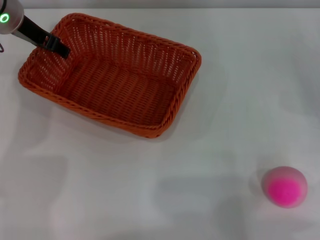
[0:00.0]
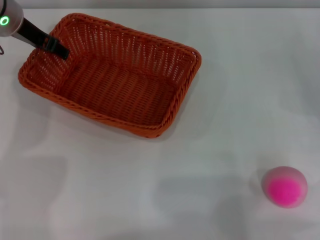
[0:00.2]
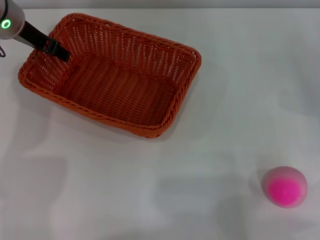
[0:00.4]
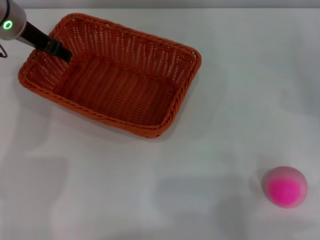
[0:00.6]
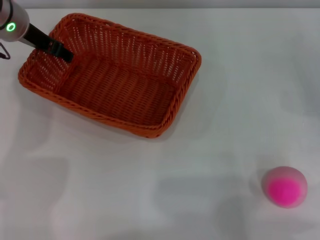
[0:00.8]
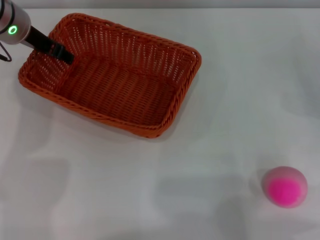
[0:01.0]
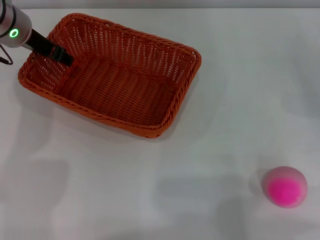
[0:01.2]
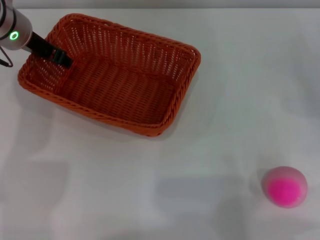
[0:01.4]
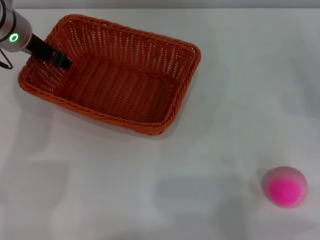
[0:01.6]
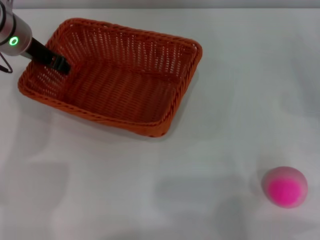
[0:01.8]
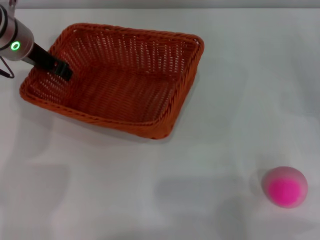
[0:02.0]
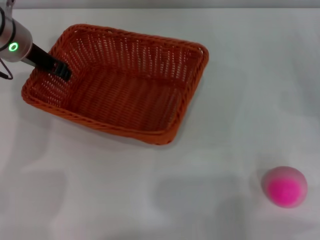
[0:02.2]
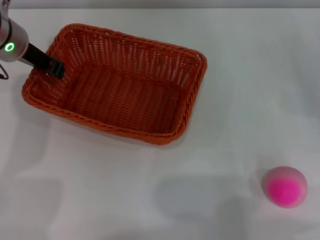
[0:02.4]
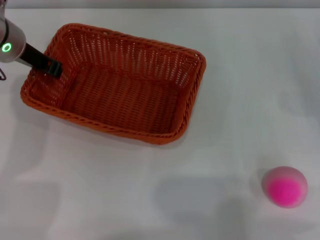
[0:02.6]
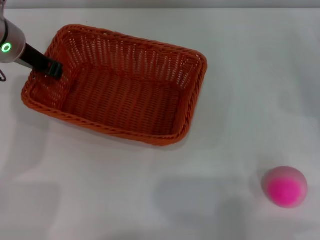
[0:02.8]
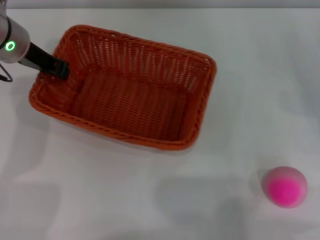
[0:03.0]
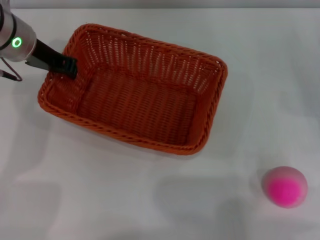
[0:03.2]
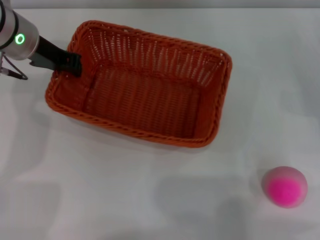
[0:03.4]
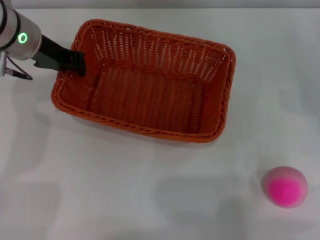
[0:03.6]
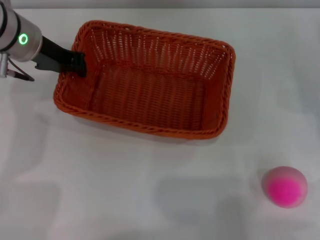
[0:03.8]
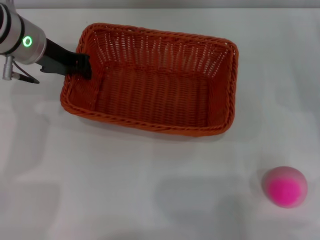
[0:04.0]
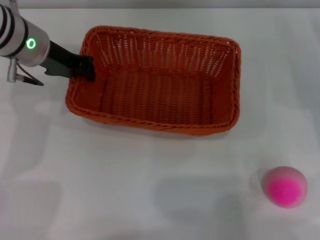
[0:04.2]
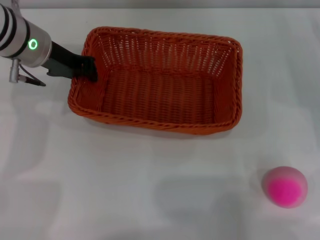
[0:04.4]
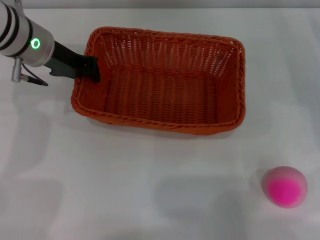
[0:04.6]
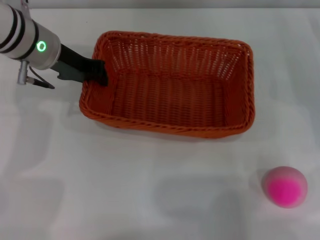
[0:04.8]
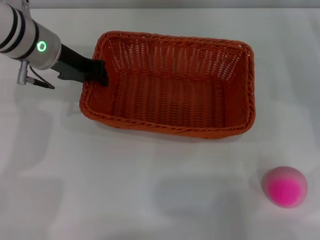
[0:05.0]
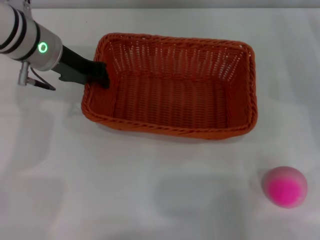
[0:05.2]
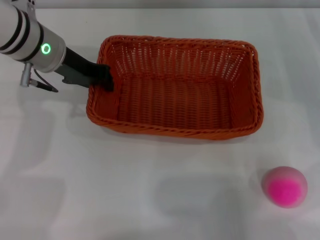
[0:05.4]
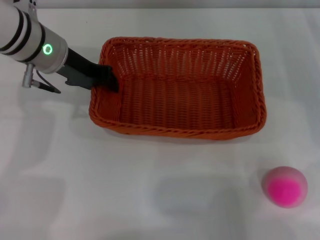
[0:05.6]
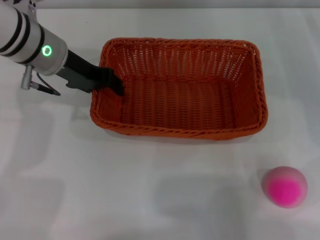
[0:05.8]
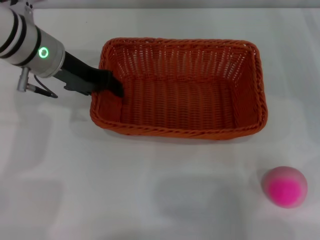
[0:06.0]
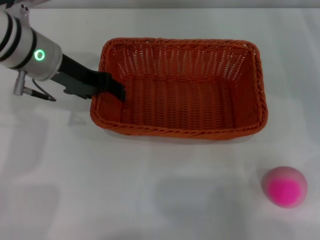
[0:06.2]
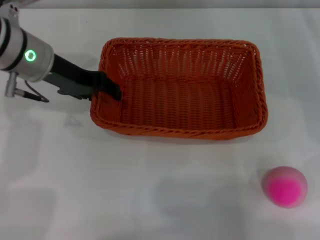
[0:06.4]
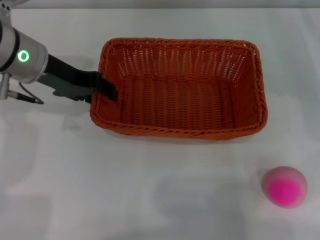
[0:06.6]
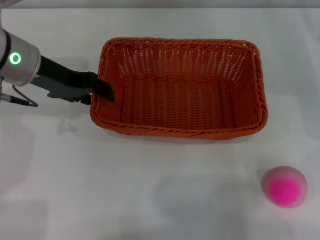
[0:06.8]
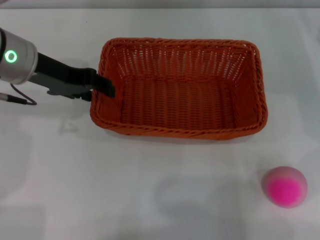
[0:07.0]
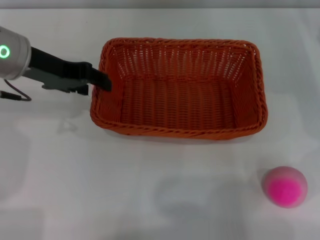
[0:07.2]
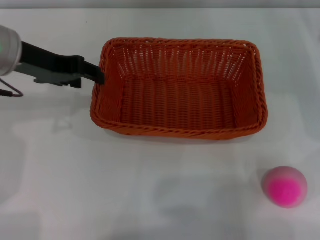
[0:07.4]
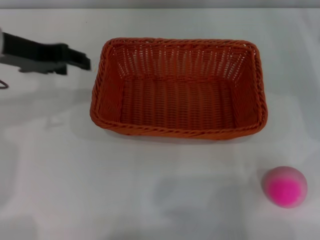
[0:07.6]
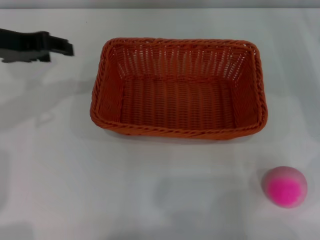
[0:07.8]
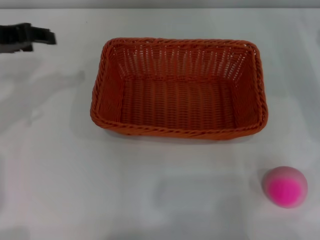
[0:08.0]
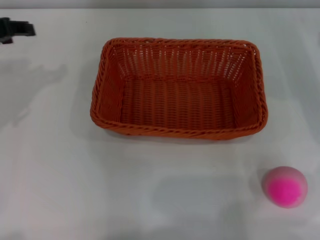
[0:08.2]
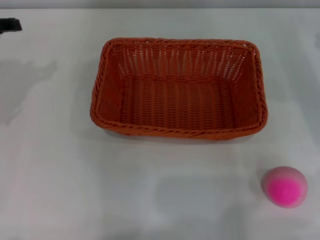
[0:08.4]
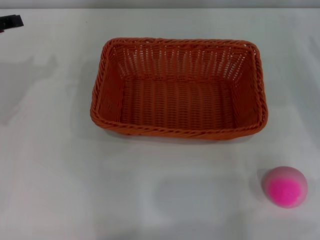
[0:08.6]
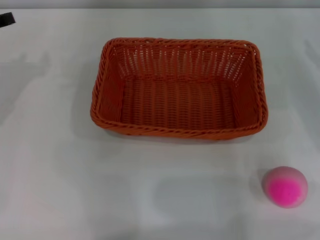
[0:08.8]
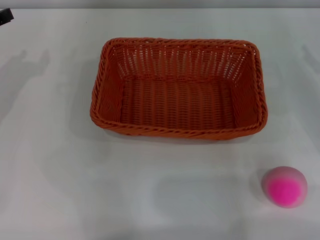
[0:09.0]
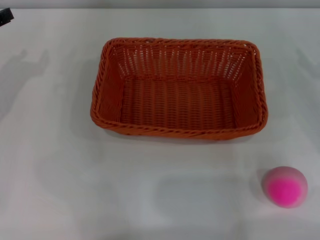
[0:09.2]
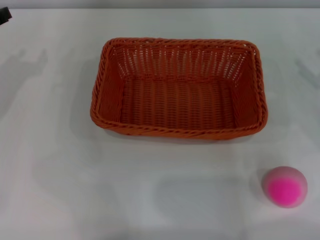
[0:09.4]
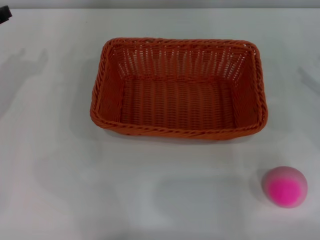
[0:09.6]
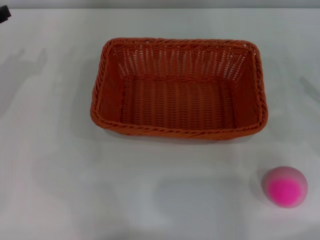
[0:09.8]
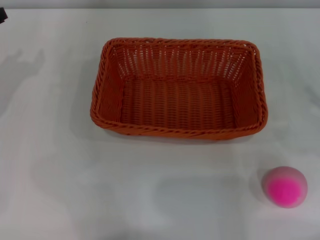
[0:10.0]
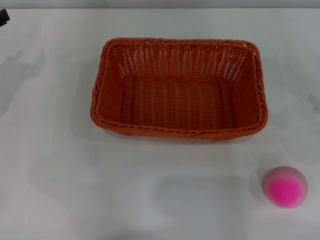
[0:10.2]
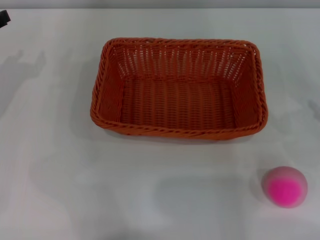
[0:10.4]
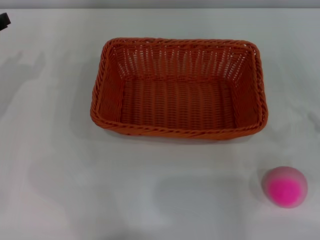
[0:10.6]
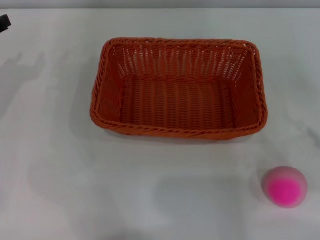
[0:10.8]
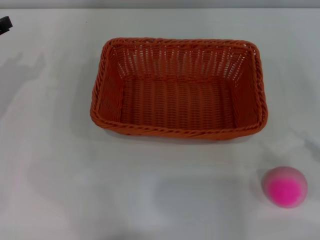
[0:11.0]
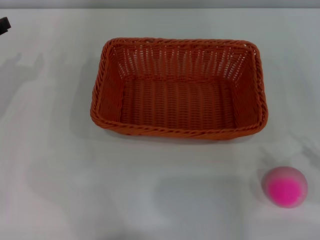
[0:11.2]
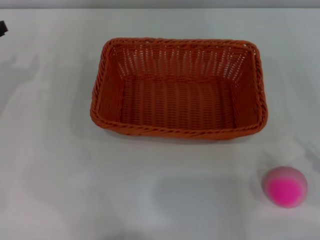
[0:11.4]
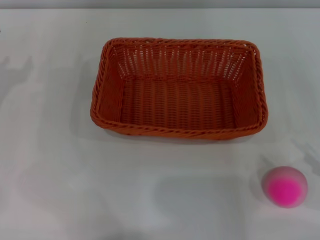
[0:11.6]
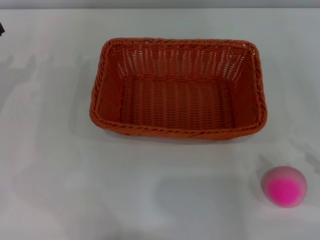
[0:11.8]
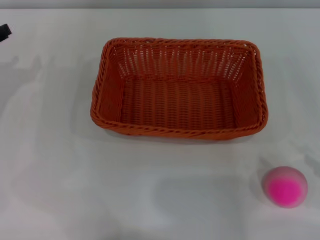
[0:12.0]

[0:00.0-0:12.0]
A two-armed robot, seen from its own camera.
Step, 0:00.0 to 0:04.0: Pick up the light basket with the left gripper.
Step, 0:04.2 to 0:07.6: Place the light basket in the center of view with the right gripper.
0:00.0 to 0:01.6: The left gripper closes its fingers.
0:01.6 to 0:03.0: The left gripper closes.
0:03.0 to 0:04.4: There are only small adjustments of the grippers.
0:04.4 to 0:06.0: The left gripper opens up.
0:06.0 to 0:07.6: The left gripper shifts approximately 10 cm to the left and upward.
0:07.6 to 0:09.0: The left gripper travels to the left and downward by about 10 cm.

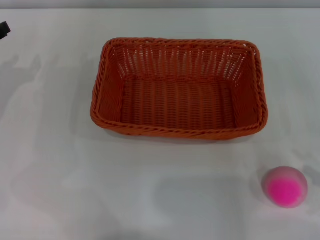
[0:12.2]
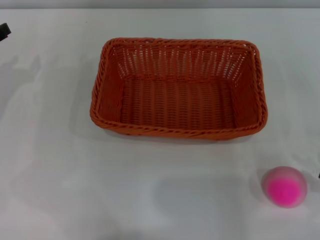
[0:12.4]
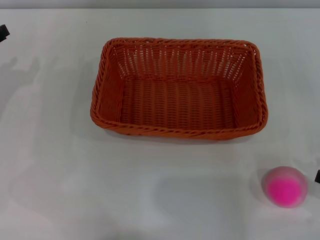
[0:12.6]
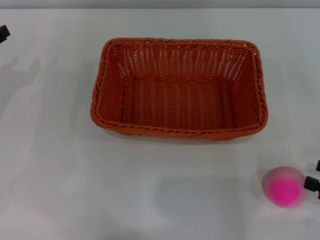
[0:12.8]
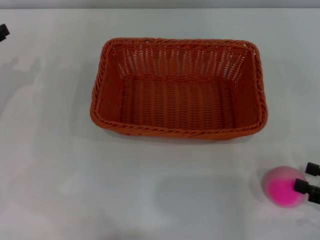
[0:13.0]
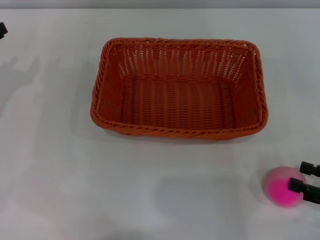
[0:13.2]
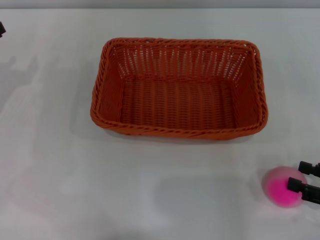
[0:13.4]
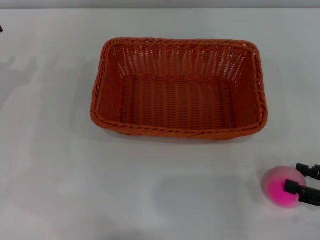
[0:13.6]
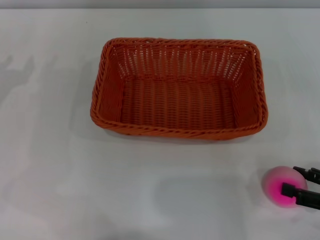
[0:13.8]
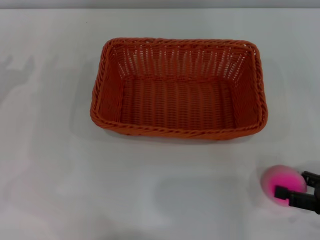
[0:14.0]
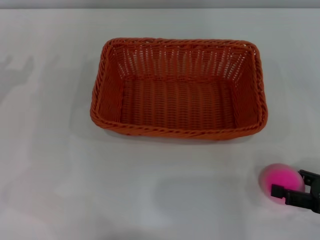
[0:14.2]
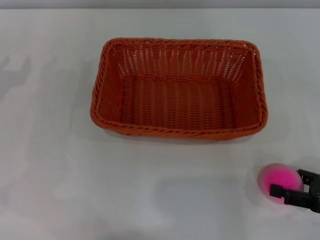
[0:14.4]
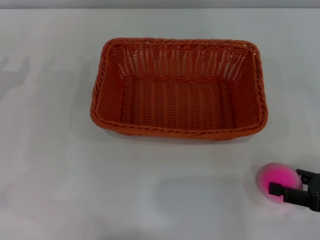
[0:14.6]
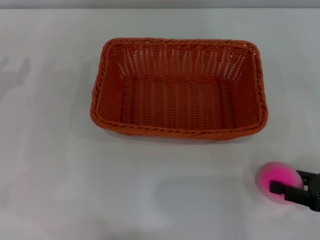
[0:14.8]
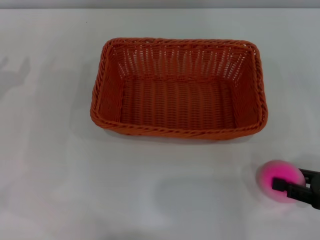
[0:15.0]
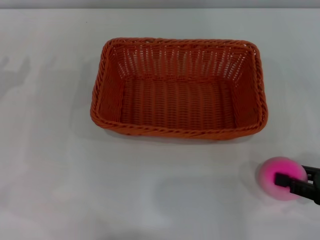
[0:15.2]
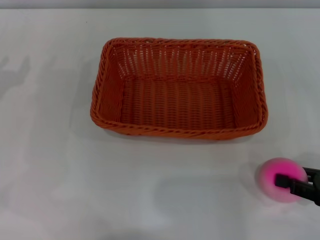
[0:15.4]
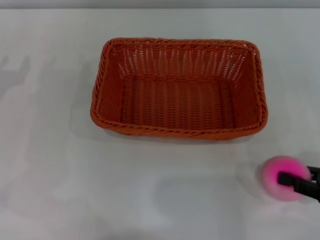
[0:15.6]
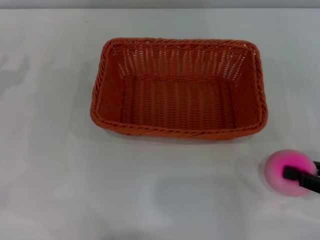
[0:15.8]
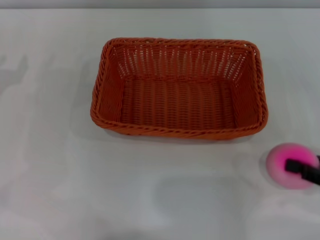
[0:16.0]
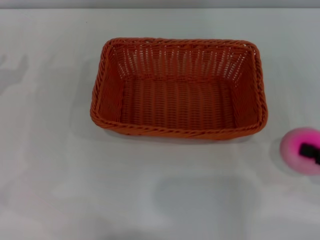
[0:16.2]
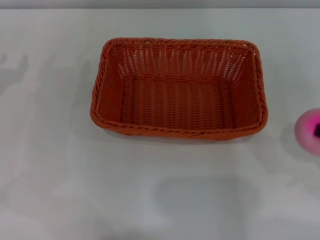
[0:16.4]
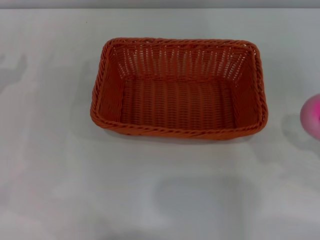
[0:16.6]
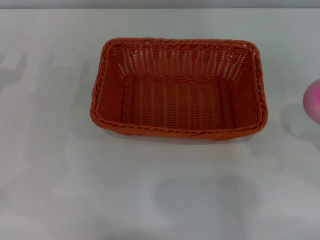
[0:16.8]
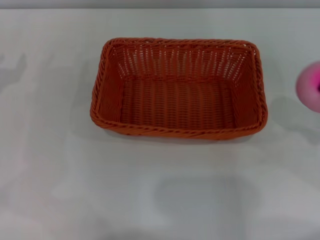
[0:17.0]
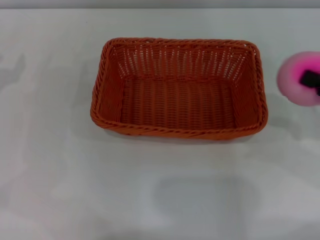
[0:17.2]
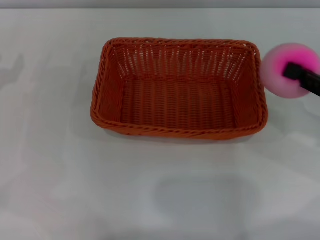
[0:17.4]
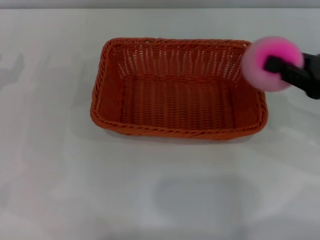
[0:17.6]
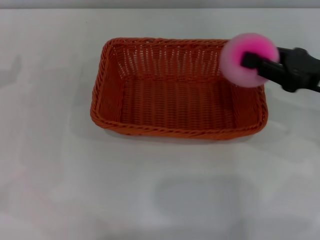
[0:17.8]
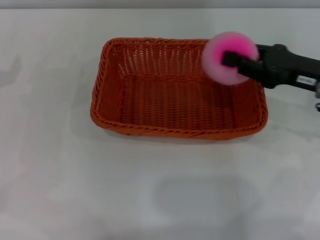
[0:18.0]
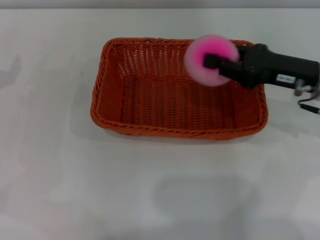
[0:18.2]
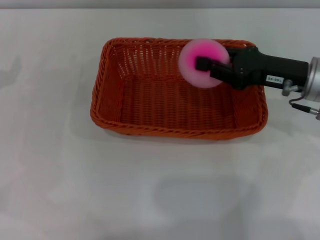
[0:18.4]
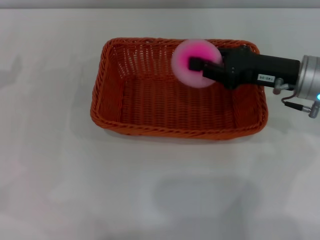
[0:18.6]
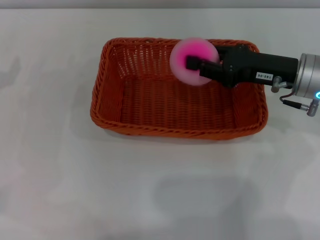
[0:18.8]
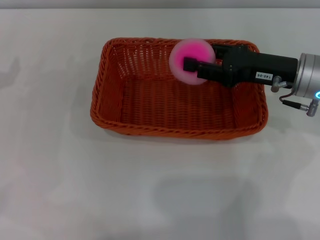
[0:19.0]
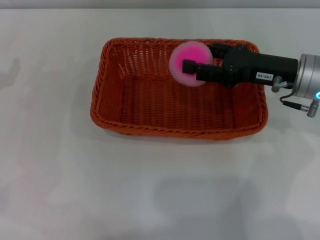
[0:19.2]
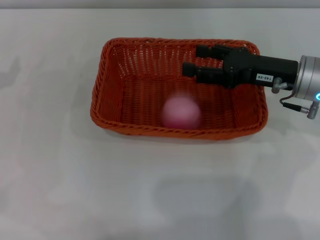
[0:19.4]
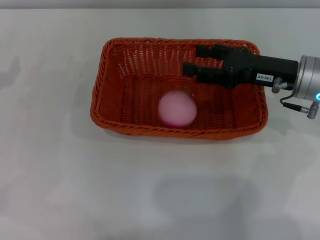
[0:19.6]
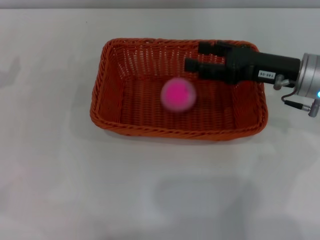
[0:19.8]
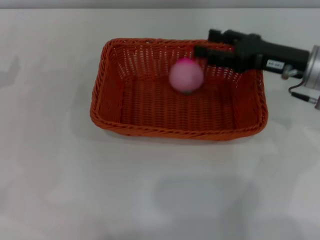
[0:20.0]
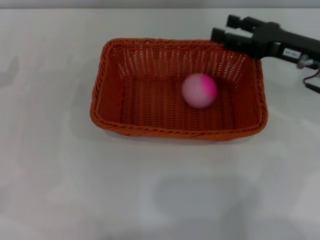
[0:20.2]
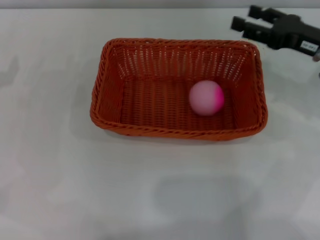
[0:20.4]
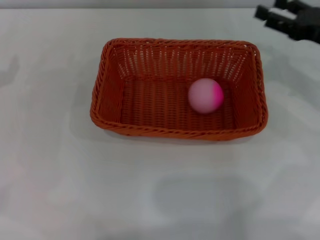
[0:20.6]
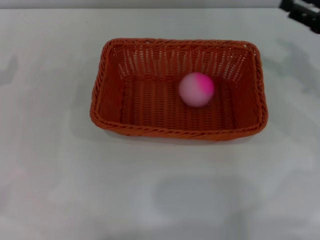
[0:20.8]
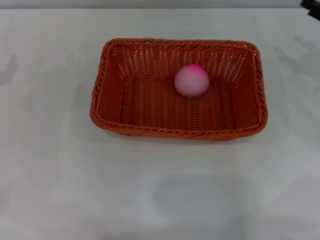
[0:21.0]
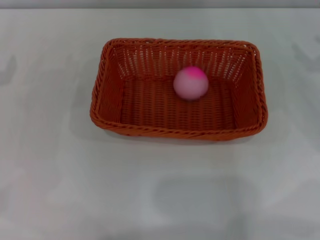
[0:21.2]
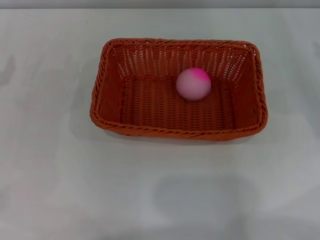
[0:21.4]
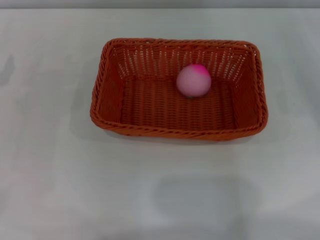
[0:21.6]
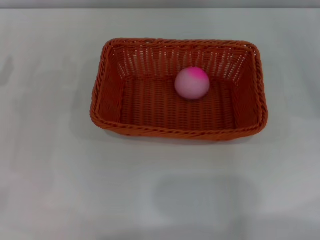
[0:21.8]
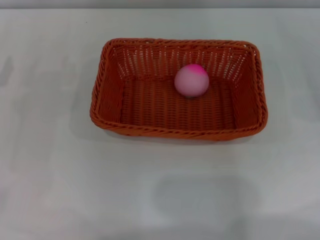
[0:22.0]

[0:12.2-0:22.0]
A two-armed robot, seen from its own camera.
Step, 0:12.2 to 0:17.4: Pick up the peach with the left gripper.
0:12.2 to 0:13.6: There are only small adjustments of the grippers.
0:13.6 to 0:15.0: The right gripper closes.
0:15.0 to 0:16.4: The right gripper shifts by about 5 cm, and closes.
0:16.4 to 0:17.8: The right gripper travels forward and to the left by roughly 15 cm.
0:17.8 to 0:19.2: The right gripper travels to the left by roughly 5 cm, and opens its fingers.
0:19.2 to 0:20.6: The right gripper is displaced to the right by about 10 cm, and opens up.
0:20.6 to 0:22.0: The right gripper travels to the right by approximately 10 cm.
